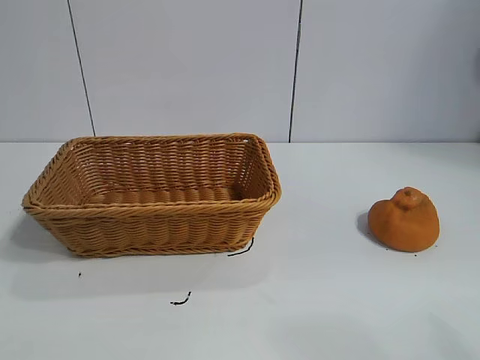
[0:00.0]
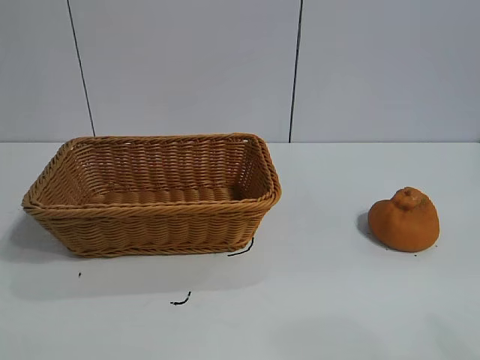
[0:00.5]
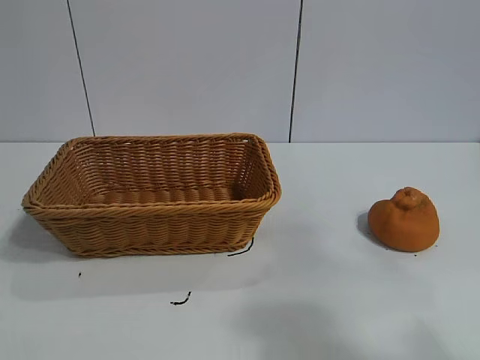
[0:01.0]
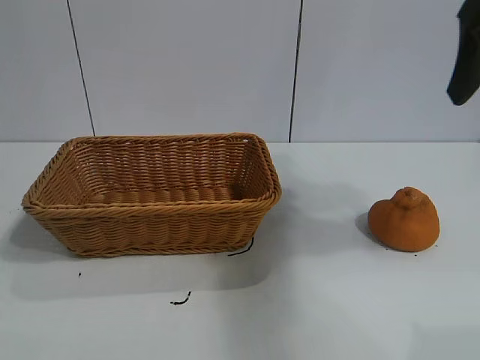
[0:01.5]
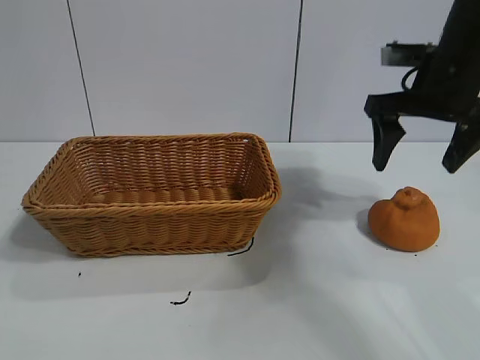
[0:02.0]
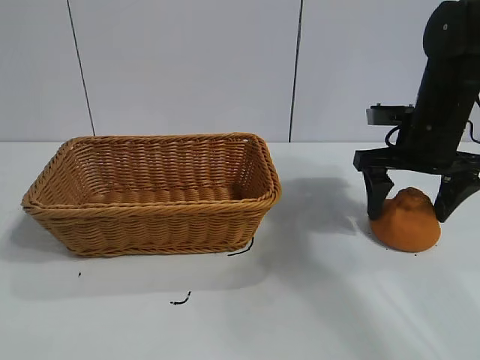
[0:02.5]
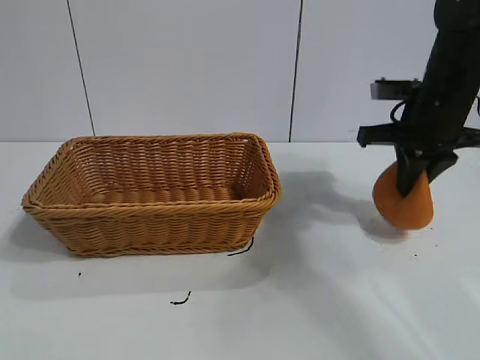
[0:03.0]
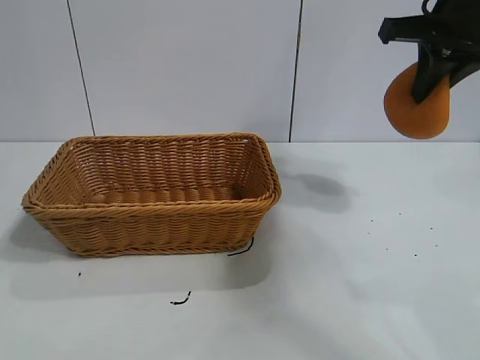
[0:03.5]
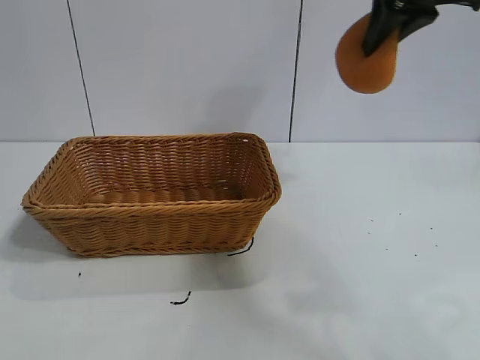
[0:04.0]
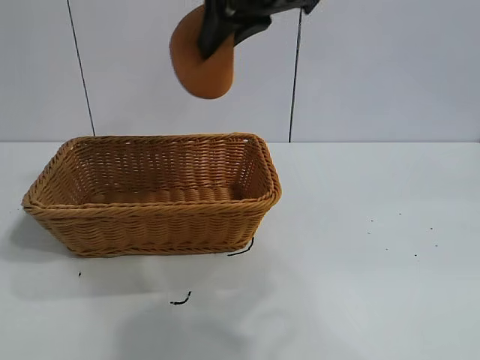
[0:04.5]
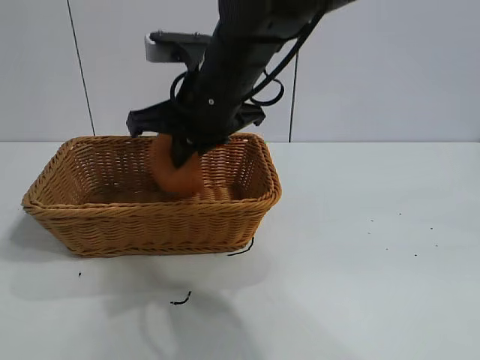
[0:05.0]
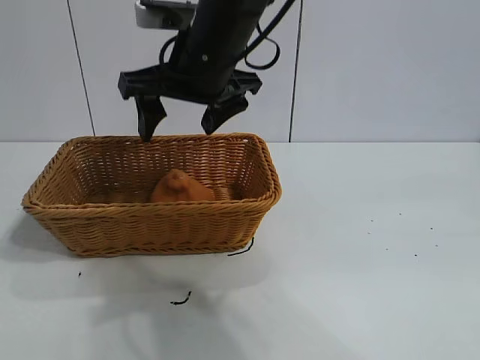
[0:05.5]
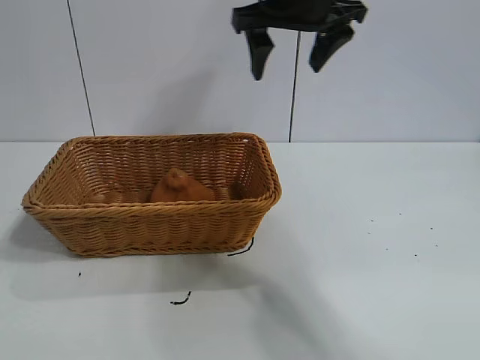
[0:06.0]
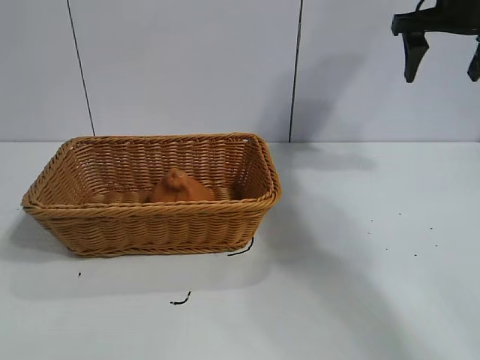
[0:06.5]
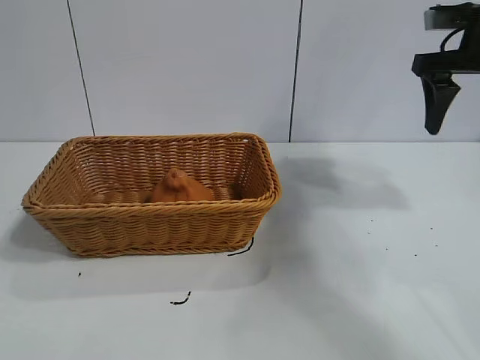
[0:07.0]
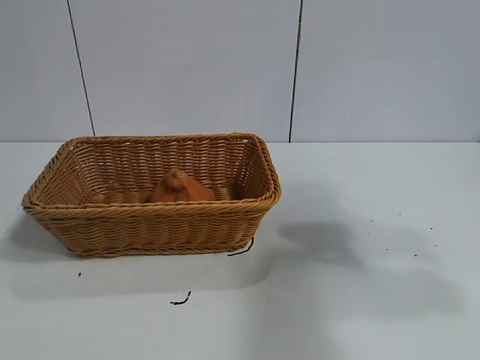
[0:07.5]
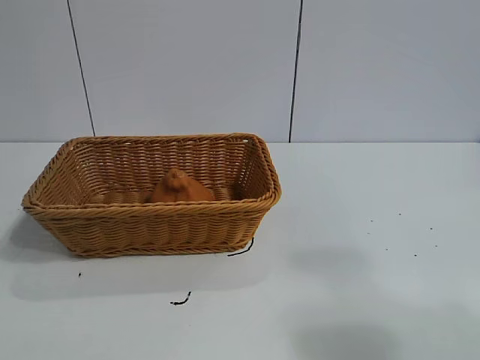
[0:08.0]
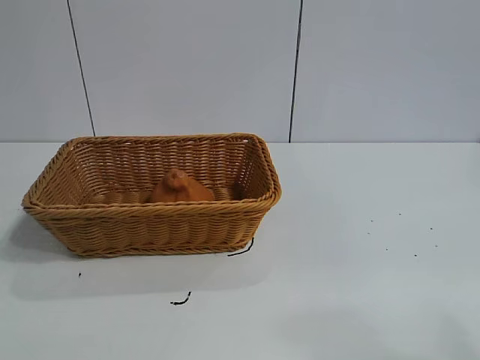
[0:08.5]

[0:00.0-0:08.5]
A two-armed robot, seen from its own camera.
Task of the whole recording: pick up the orange and put it into the basket.
Step, 0:01.0 to 0:02.5: Grasp the orange with right gripper.
Step, 0:03.5 to 0:05.0: Place the orange in the basket with right gripper.
